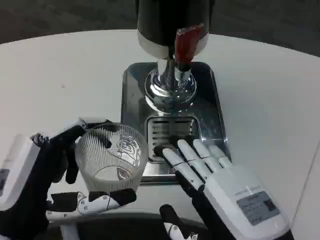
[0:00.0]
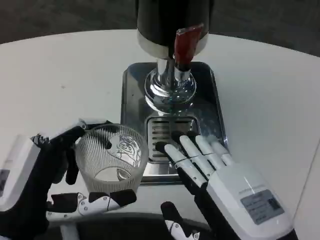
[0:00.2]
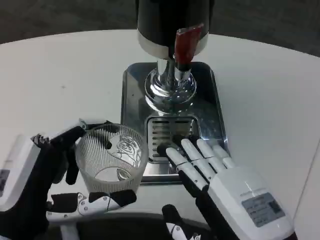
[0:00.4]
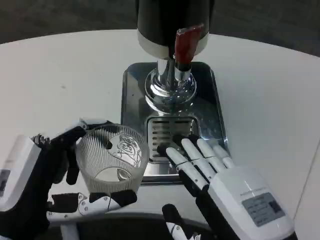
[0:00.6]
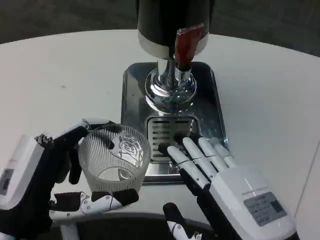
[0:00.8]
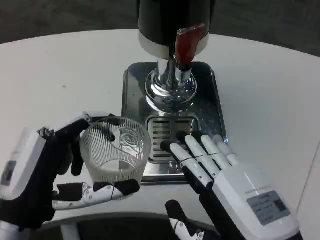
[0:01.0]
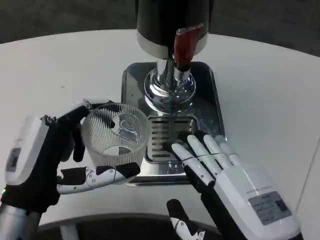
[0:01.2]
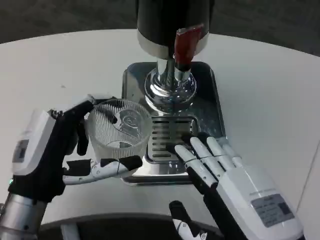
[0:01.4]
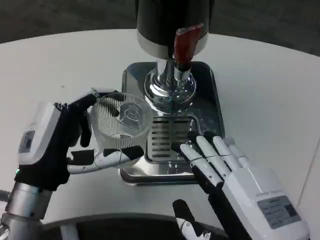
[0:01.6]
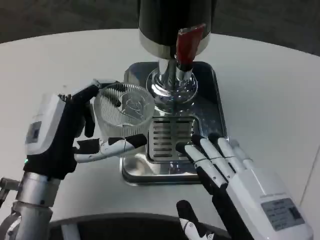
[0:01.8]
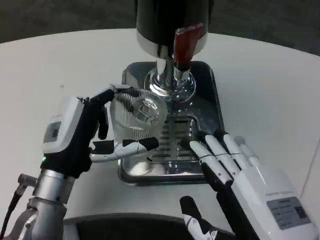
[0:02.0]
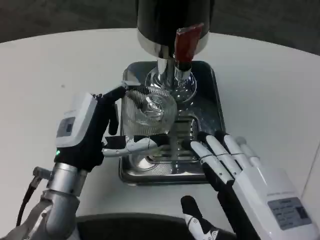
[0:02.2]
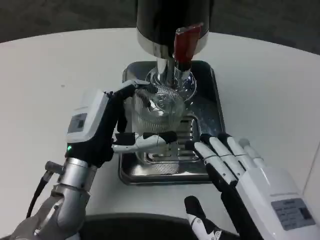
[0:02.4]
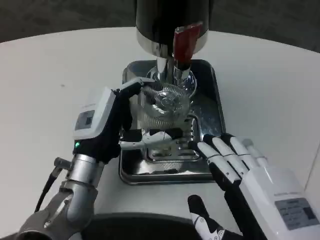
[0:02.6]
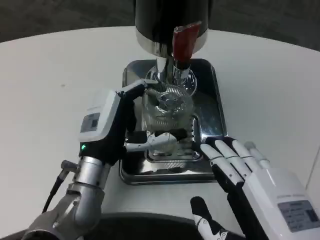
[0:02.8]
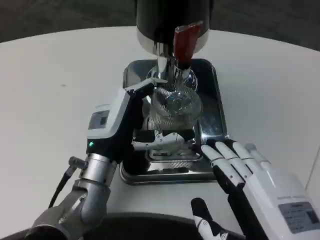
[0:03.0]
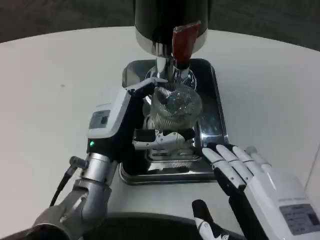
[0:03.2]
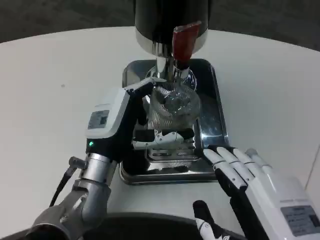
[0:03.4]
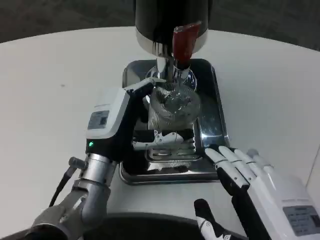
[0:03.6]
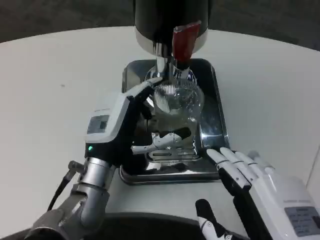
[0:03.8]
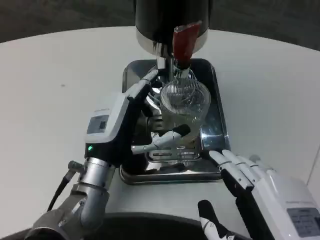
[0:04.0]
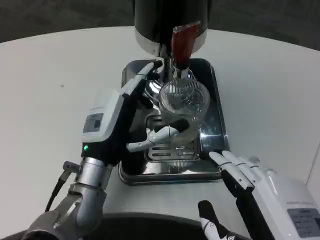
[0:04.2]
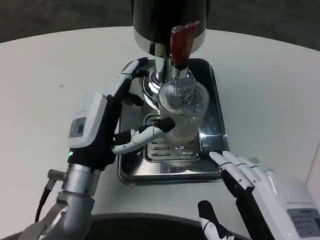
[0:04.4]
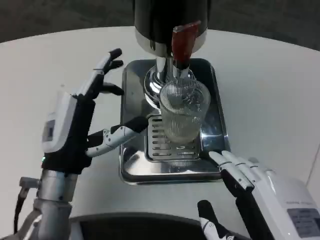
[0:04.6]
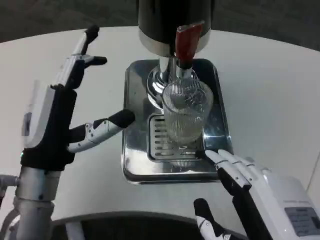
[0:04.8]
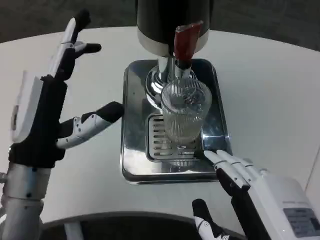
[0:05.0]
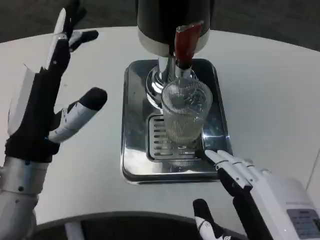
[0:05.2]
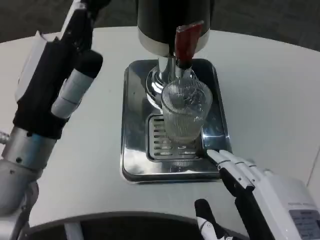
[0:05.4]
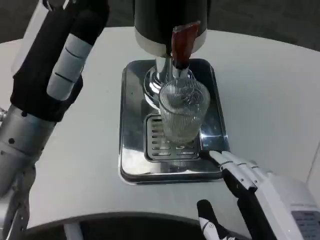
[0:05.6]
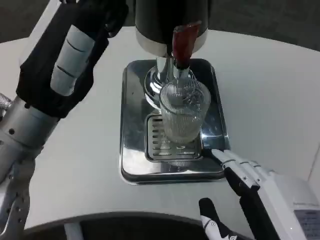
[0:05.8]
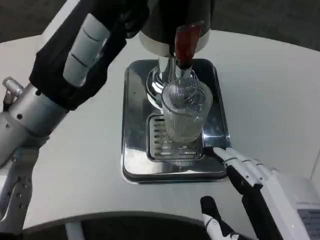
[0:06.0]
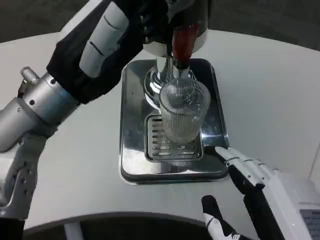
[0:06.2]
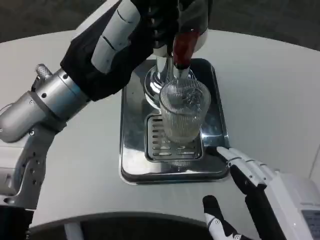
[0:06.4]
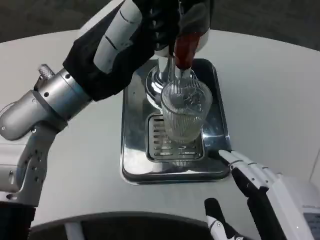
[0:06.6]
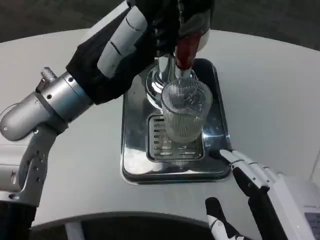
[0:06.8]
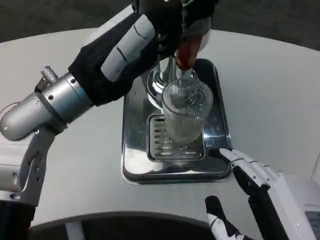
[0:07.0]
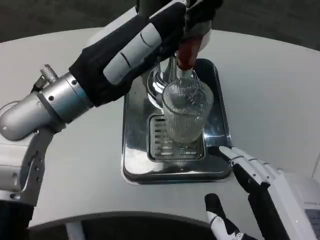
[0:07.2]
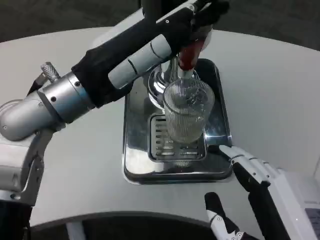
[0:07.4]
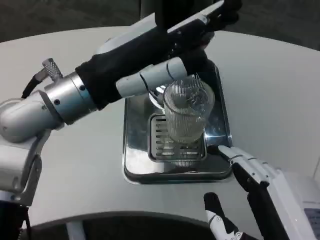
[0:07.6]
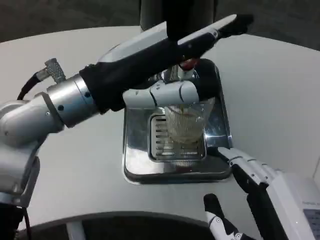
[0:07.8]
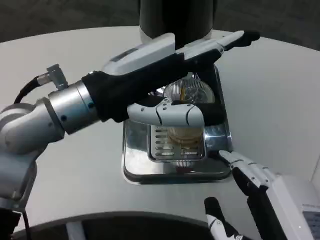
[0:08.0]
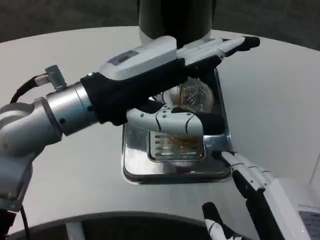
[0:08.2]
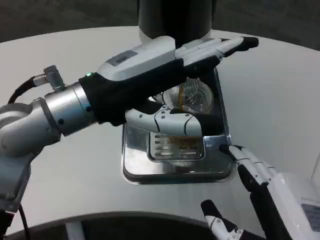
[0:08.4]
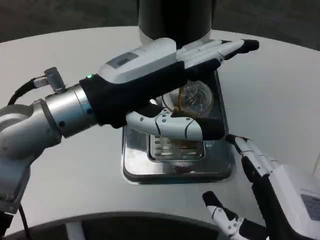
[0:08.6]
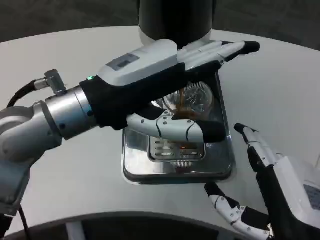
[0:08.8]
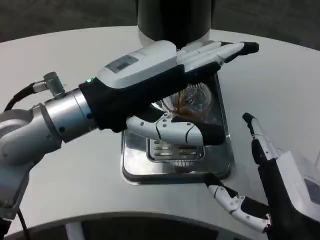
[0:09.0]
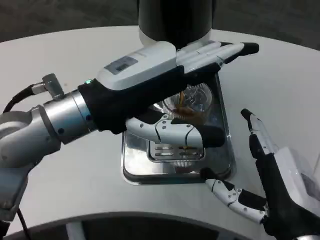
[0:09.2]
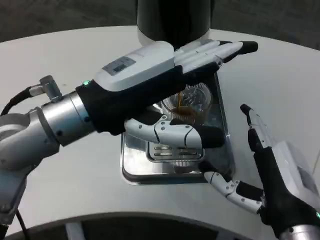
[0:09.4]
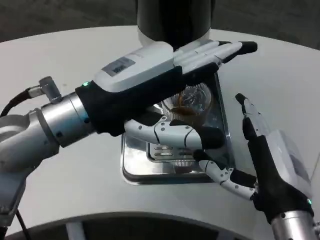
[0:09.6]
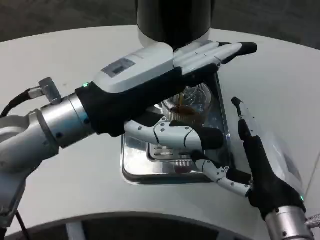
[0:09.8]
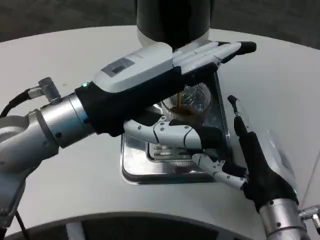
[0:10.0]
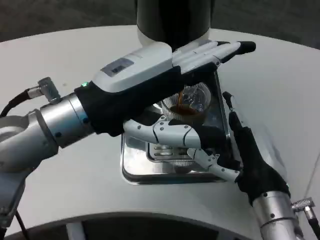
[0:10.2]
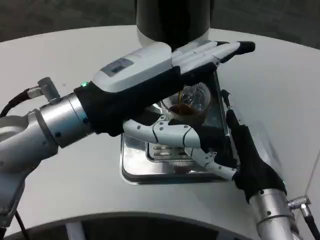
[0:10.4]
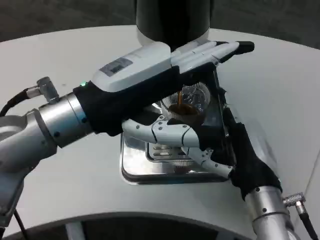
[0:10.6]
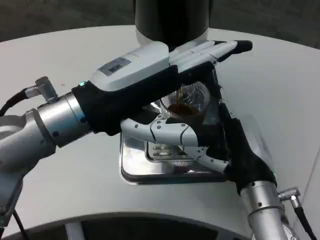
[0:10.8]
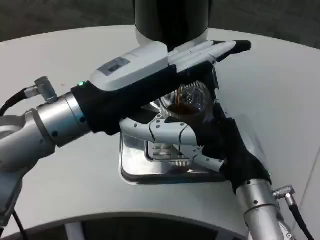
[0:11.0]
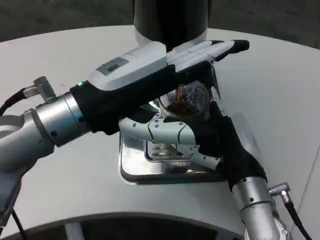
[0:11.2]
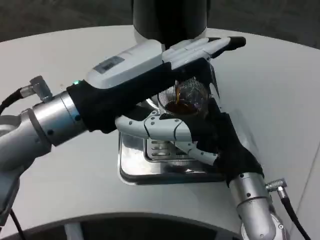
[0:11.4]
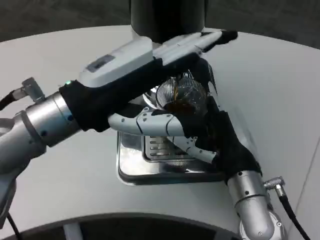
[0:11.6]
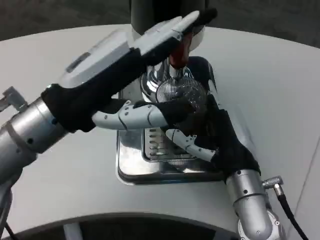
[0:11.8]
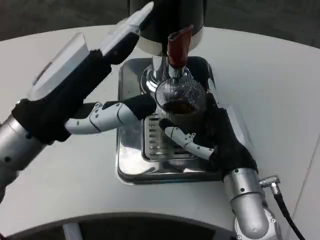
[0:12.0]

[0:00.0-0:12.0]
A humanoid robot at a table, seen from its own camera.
Task of the whole recording: Grasp the cup under the faucet to collect the drink, then remove the cup.
0:00.0 to 0:01.6: The left hand moves forward, approximately 5 cm.
0:01.6 to 0:03.0: The left hand moves to the right and forward, roughly 10 cm.
0:04.4 to 0:06.0: The left hand heads upward, covering about 15 cm.
0:07.6 to 0:09.0: The right hand goes some 5 cm forward.
0:09.0 to 0:10.4: The right hand moves forward, some 10 cm.
0:10.4 to 0:12.0: The left hand moves some 5 cm.

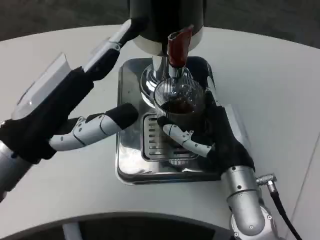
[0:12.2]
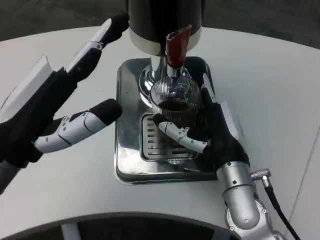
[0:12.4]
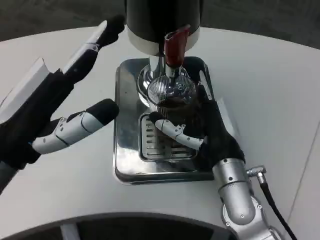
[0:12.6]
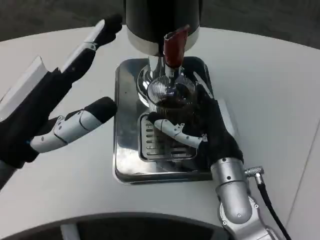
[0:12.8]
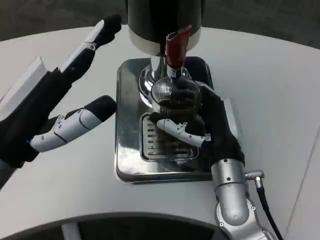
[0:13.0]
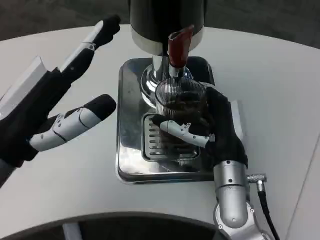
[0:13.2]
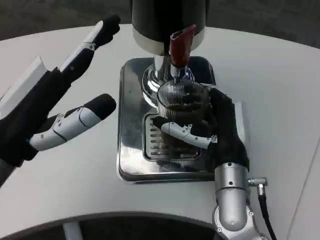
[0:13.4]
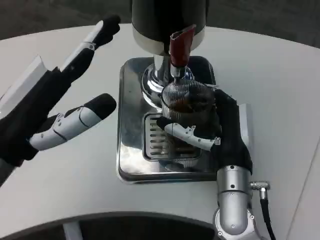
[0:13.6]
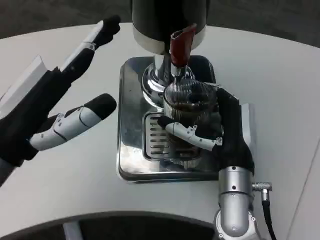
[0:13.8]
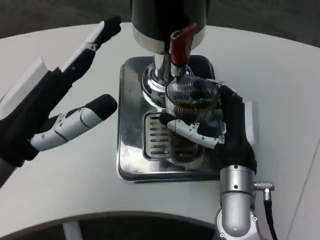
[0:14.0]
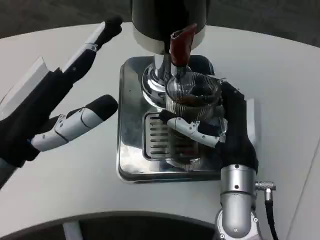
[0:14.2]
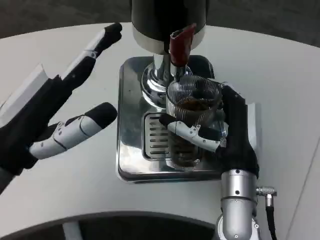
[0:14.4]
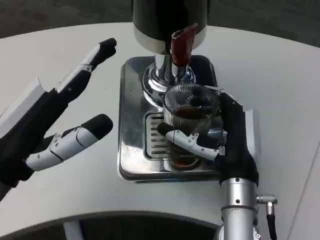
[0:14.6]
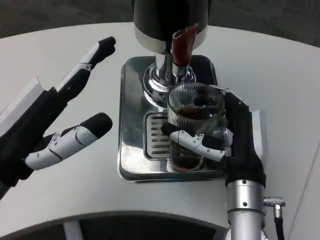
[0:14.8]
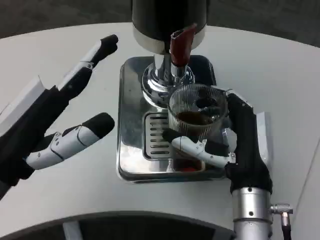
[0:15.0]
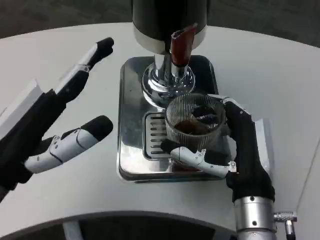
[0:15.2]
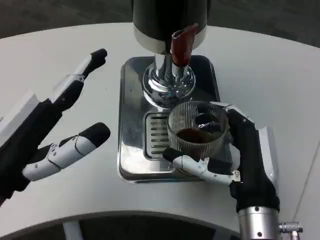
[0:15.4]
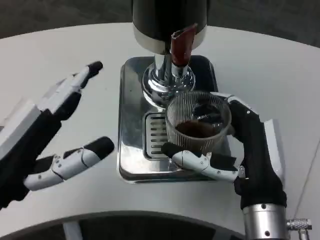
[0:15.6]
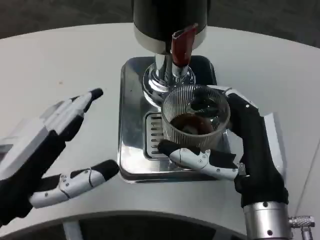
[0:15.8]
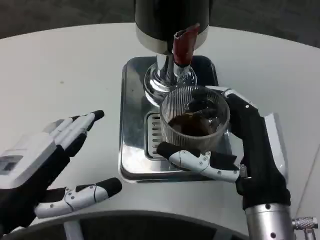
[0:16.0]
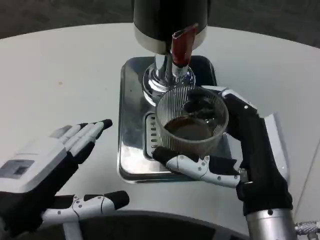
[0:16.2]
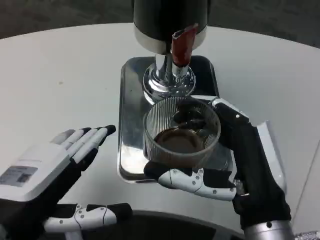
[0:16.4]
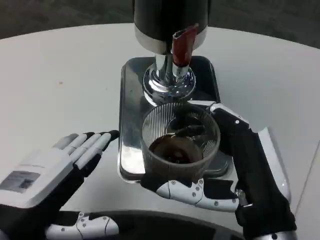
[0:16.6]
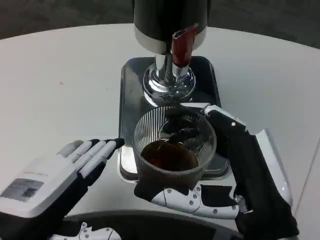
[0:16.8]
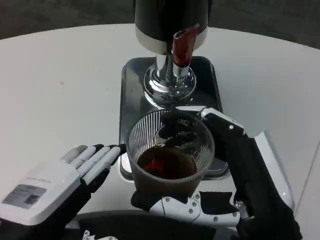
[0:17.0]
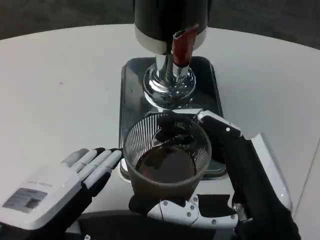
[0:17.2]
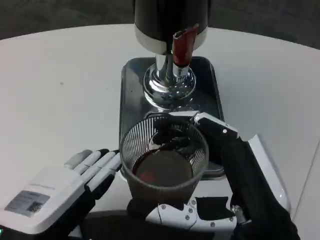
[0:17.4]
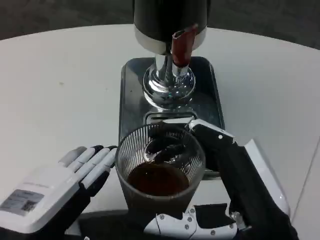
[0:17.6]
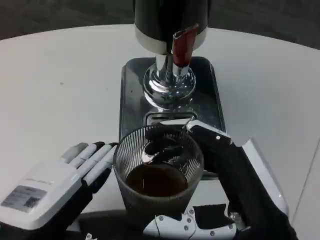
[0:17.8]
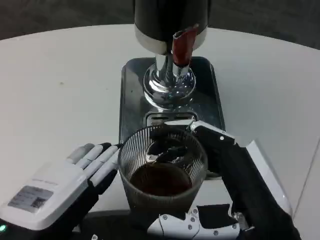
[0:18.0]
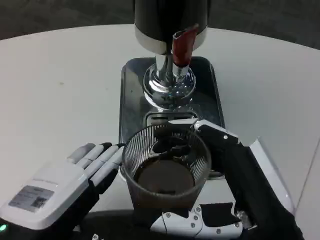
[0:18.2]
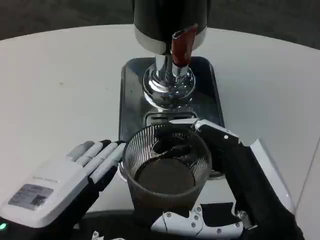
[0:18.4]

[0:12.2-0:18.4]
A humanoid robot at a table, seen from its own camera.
Task of the whole recording: Grasp the cup under the faucet to collect the drink, then remove the cup.
0:13.8 to 0:15.4: The right hand shifts about 5 cm backward.
0:15.4 to 0:16.8: The left hand moves about 5 cm; the right hand shifts about 5 cm backward.

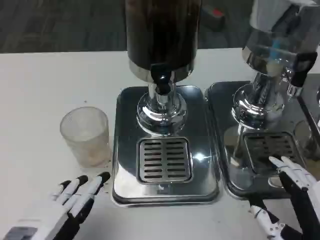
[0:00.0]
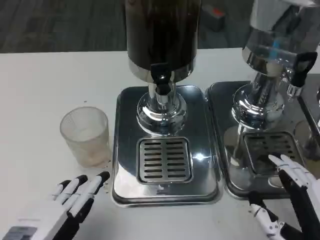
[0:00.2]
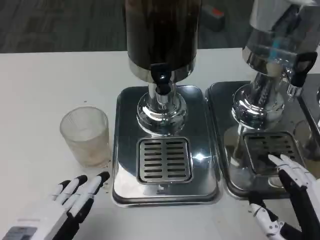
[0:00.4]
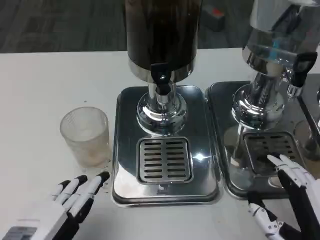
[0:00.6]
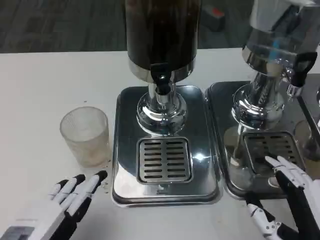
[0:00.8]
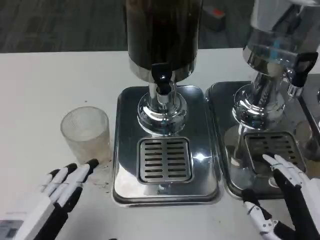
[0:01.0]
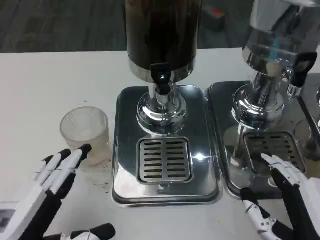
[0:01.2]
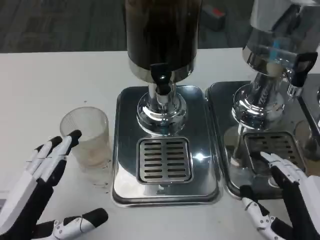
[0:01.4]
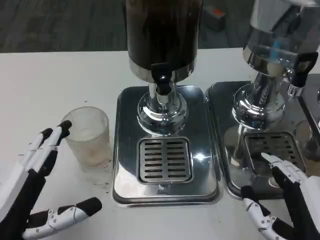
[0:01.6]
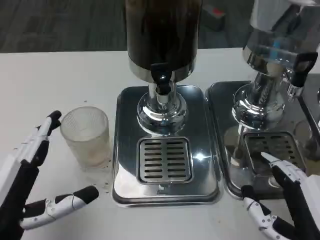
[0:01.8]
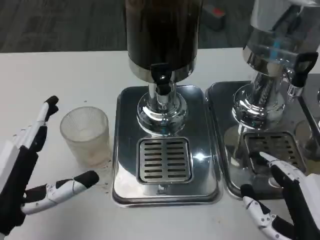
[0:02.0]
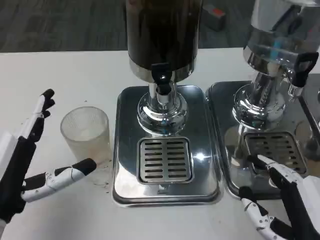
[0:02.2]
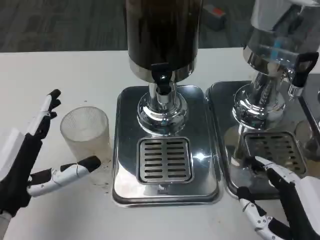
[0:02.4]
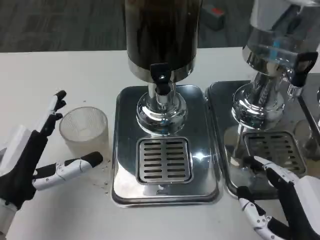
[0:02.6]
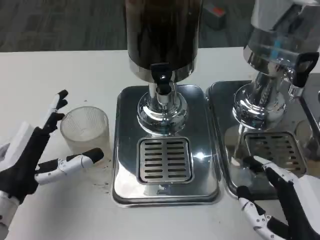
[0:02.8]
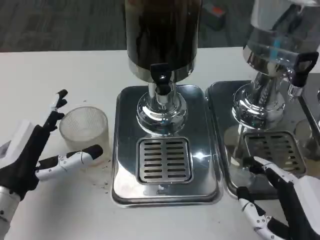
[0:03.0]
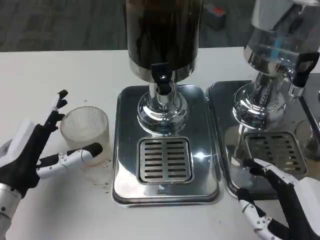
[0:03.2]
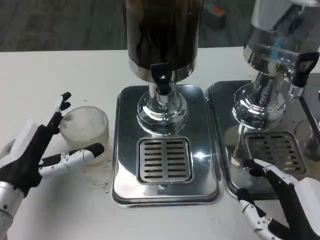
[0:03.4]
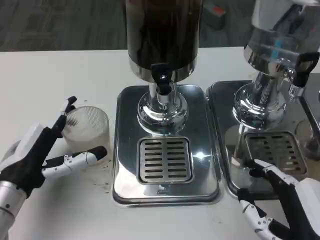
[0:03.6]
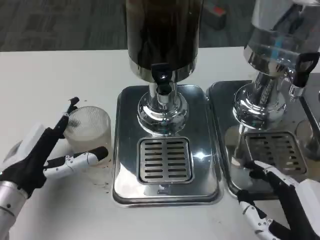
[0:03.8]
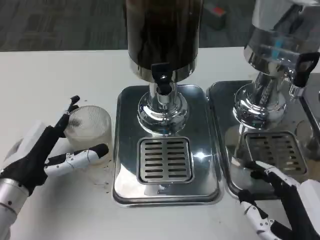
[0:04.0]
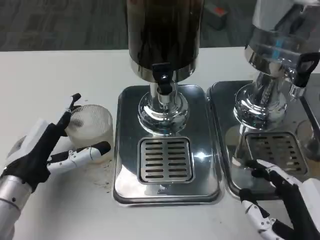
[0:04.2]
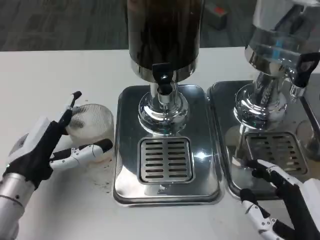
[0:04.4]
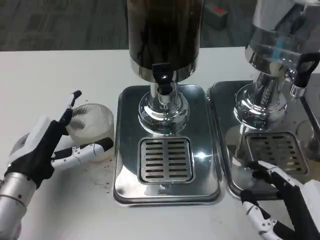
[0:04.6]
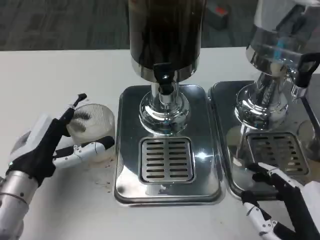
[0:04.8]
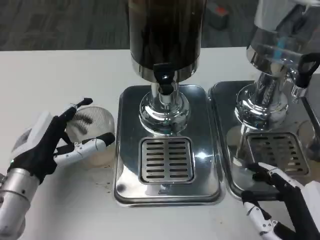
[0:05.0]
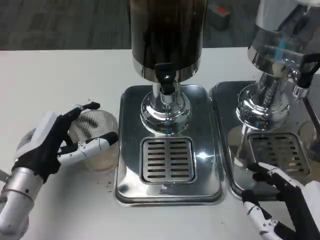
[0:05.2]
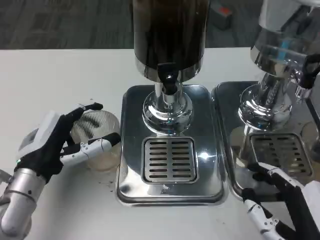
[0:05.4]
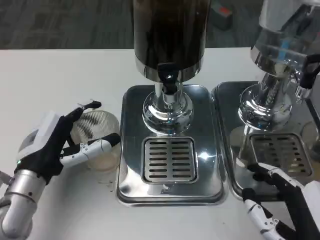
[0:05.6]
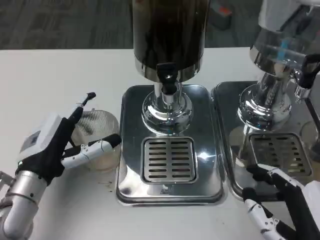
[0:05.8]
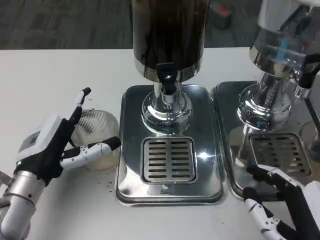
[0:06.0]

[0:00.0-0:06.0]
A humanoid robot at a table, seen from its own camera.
Task of the whole recording: Grasp the cup under the faucet to collect the drink, then remove the cup.
0:00.0 to 0:01.6: There are only small adjustments of the hands.
0:01.6 to 0:03.0: The left hand moves forward, some 10 cm.
0:03.0 to 0:04.4: The hands move only a little.
